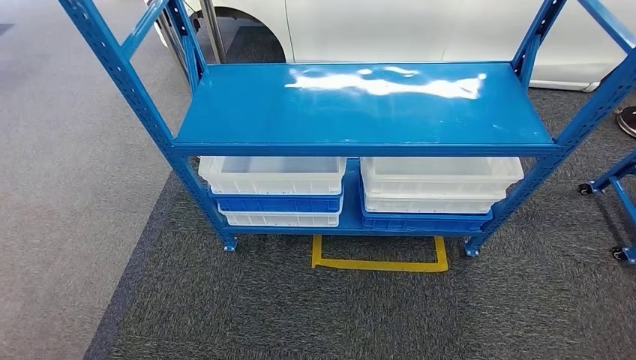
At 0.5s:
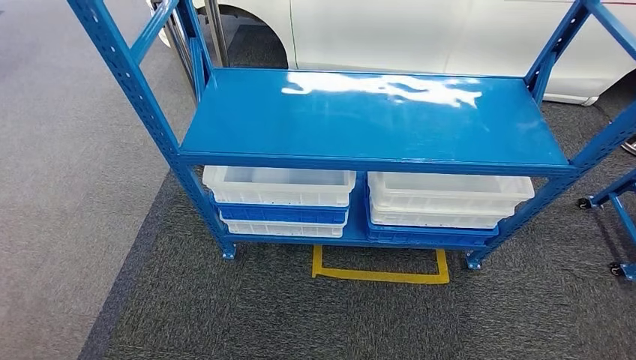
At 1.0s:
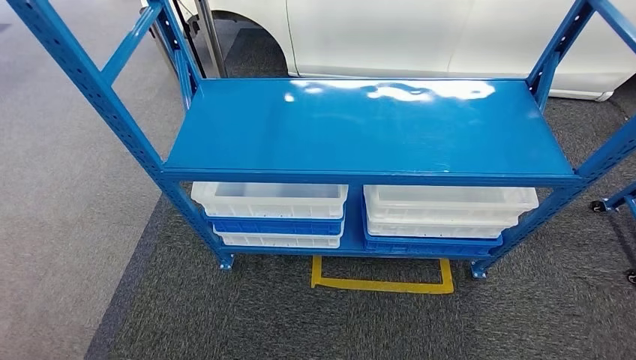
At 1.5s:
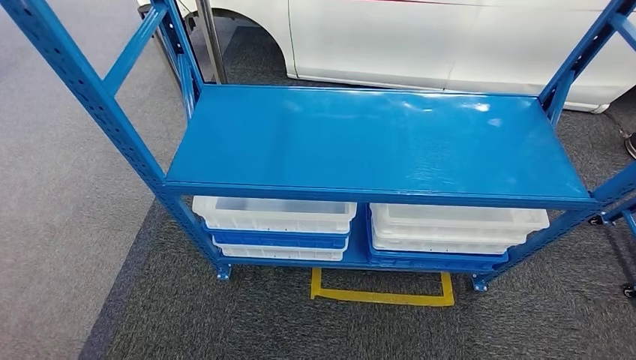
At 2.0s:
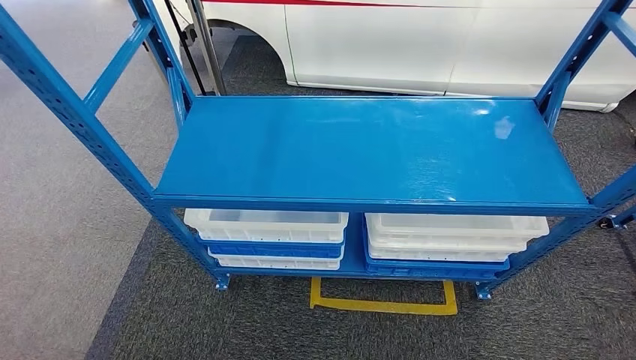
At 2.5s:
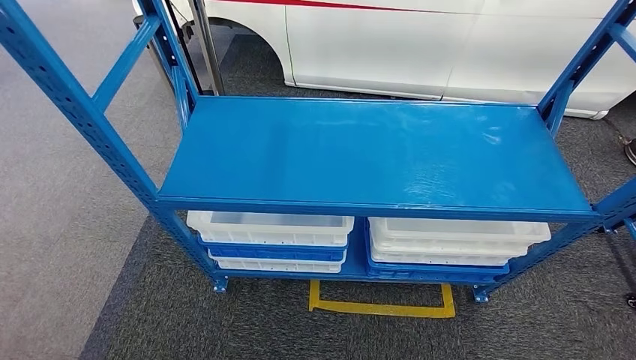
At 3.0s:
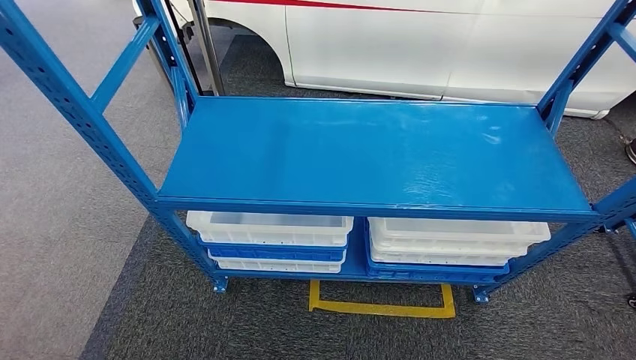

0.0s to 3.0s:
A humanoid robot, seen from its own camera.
Step, 0.0s to 3.0s: Move to the initial position of the shelf.

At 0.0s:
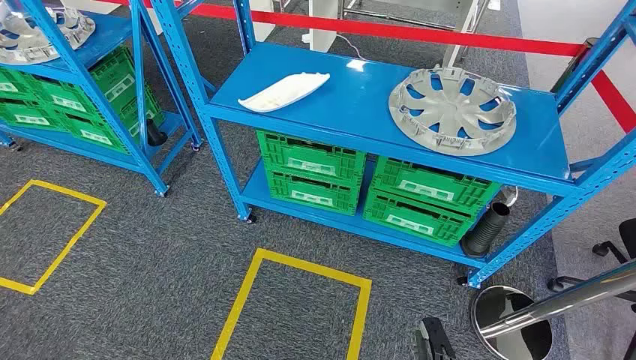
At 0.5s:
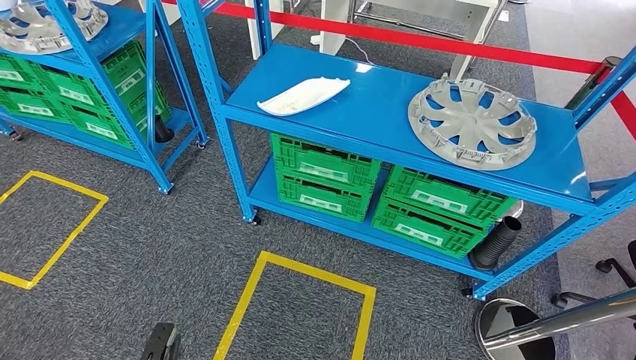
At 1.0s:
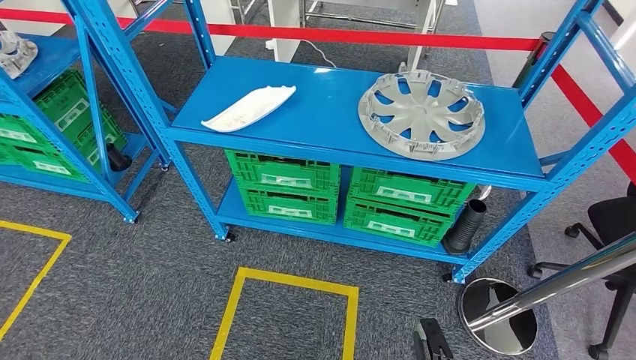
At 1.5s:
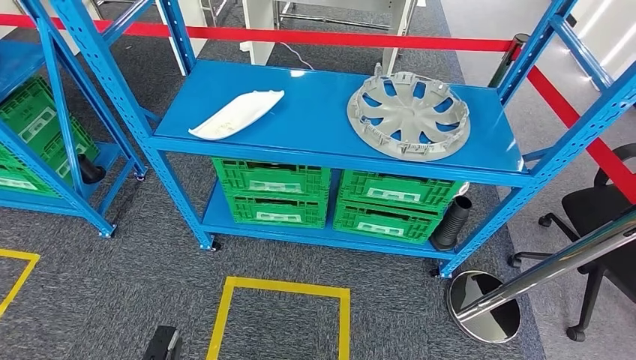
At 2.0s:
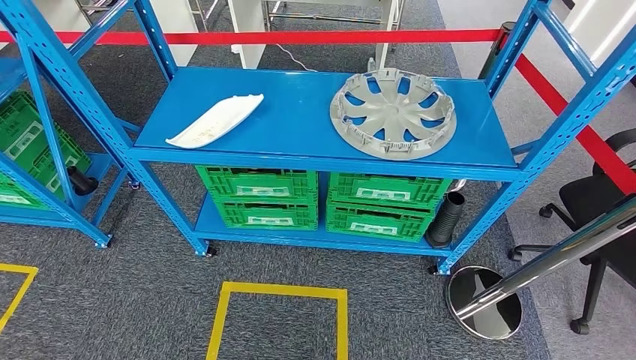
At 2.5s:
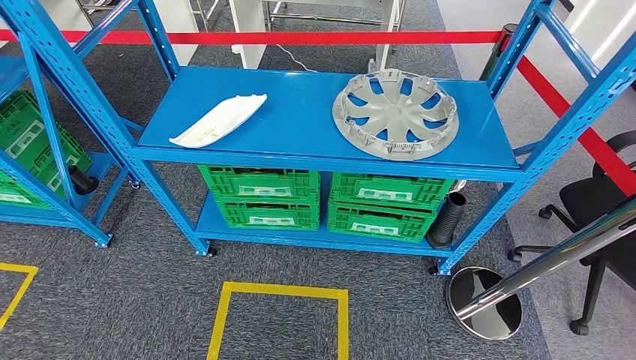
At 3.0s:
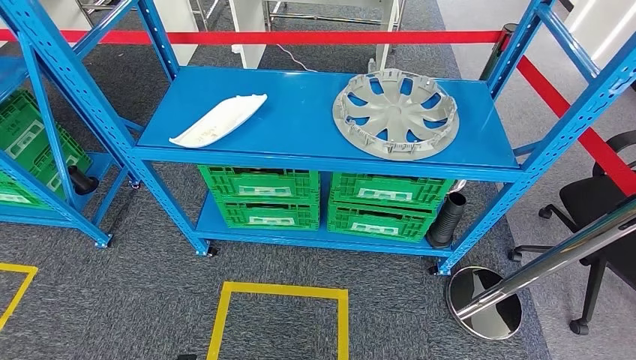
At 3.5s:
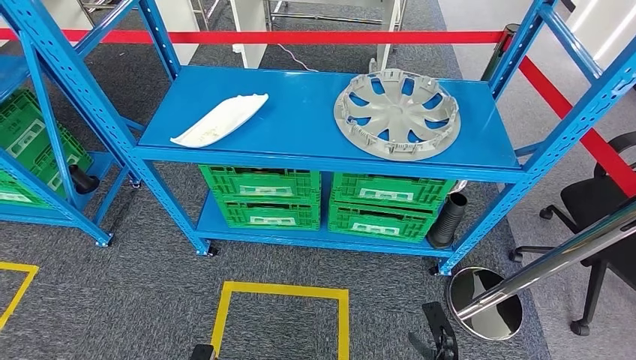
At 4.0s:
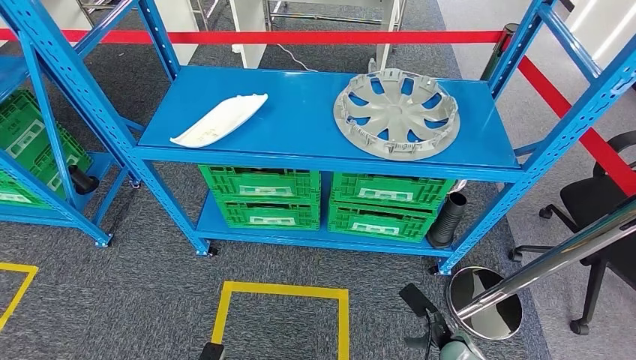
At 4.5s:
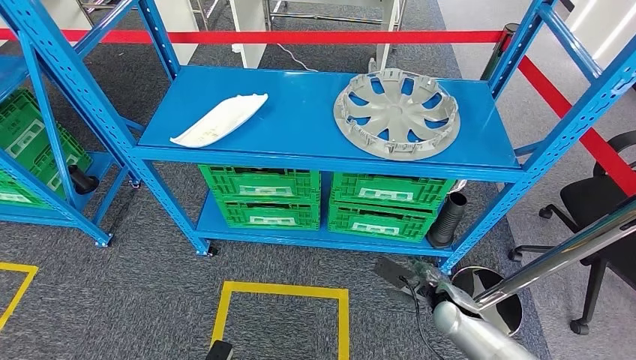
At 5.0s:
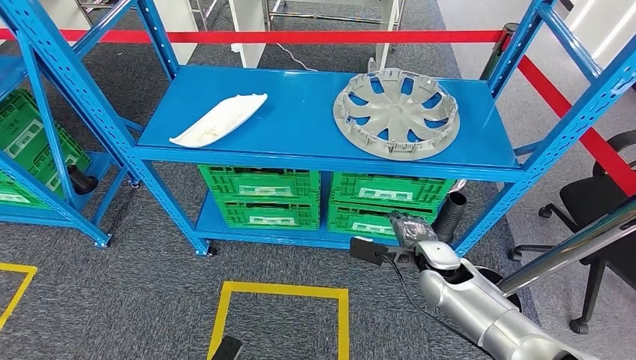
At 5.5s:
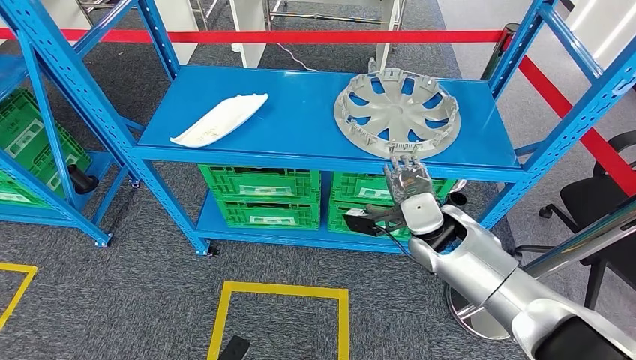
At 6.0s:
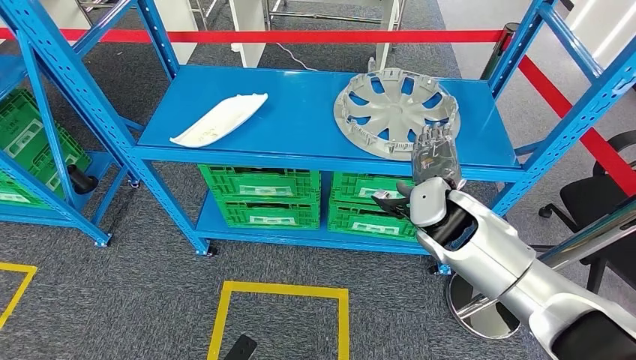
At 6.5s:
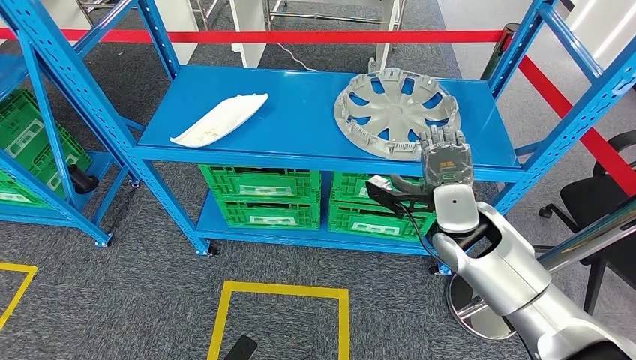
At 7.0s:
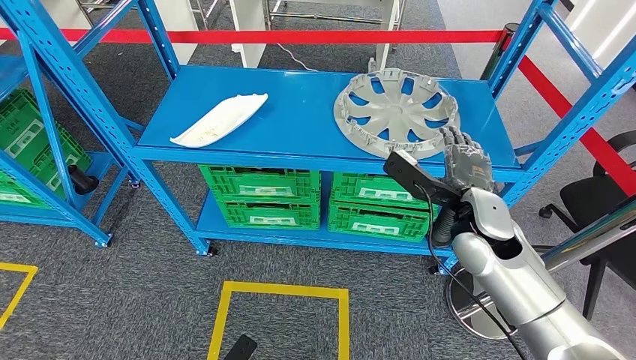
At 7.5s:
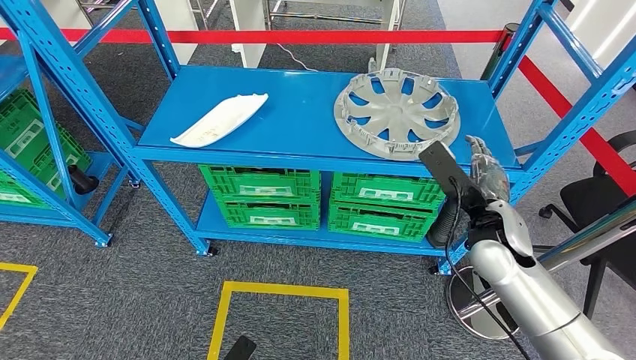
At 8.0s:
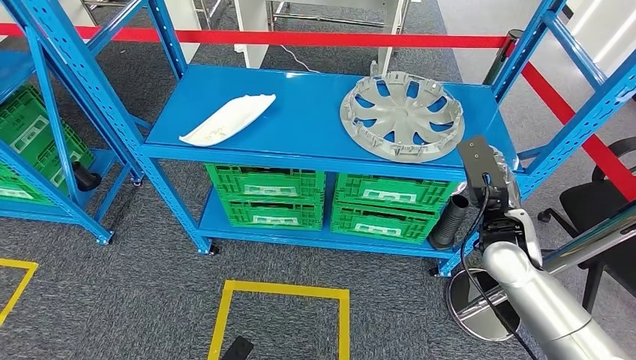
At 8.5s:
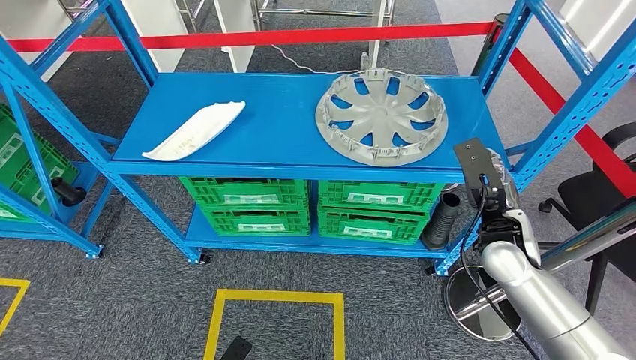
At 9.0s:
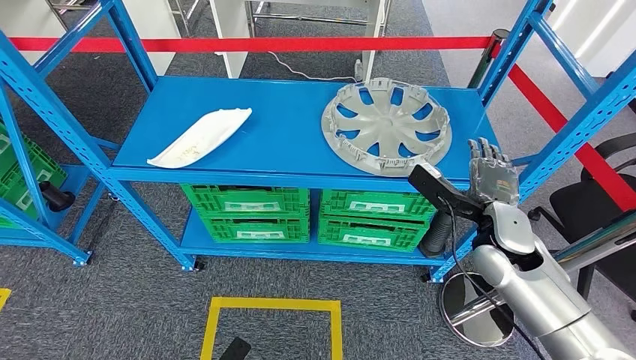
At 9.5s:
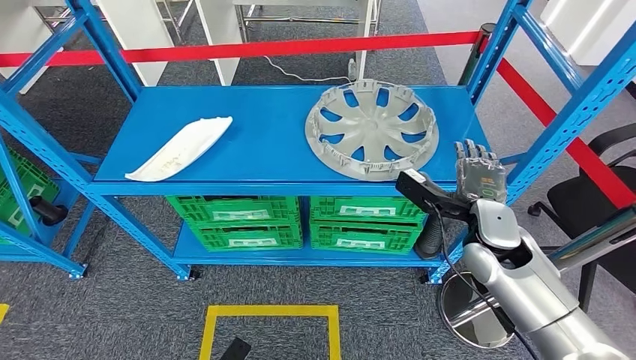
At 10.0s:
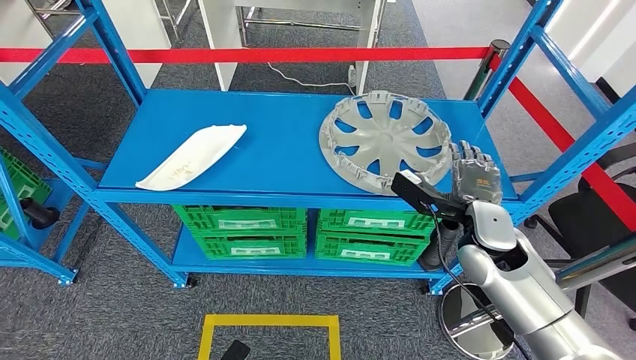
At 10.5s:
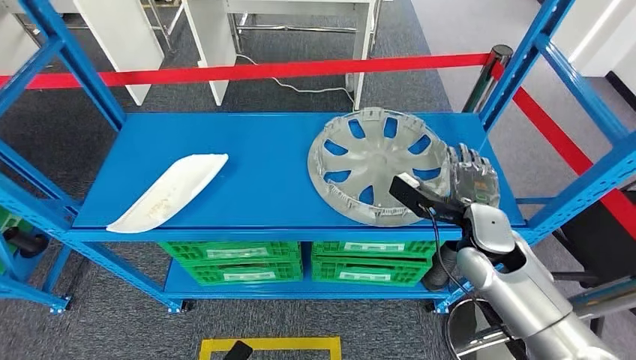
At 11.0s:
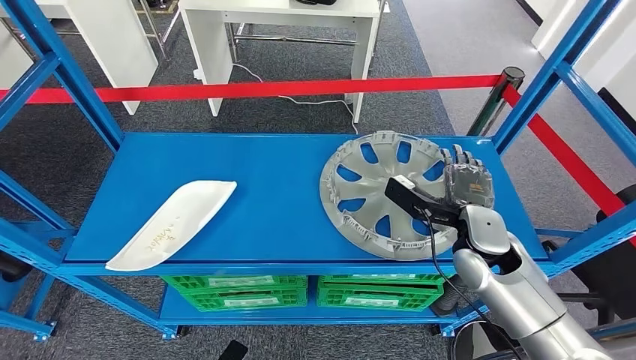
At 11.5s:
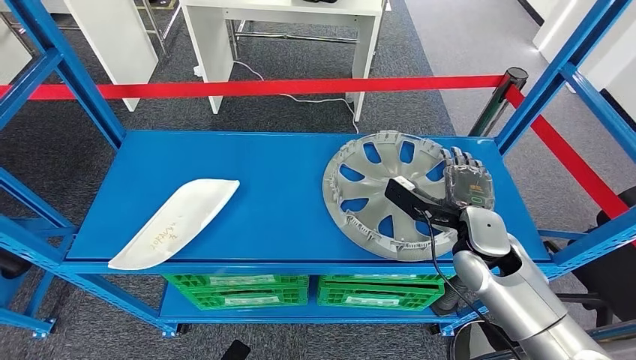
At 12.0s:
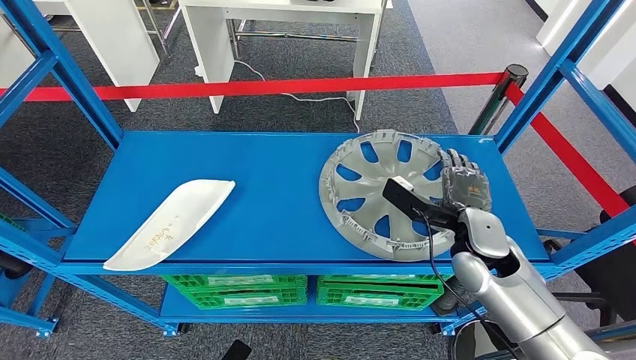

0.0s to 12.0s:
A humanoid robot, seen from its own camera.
2.0s to 4.0s: The left hand heads to the right and forward, covering about 10 cm. The right hand moves forward, roughly 20 cm.
4.0s to 6.0s: The right hand goes about 35 cm upward and forward.

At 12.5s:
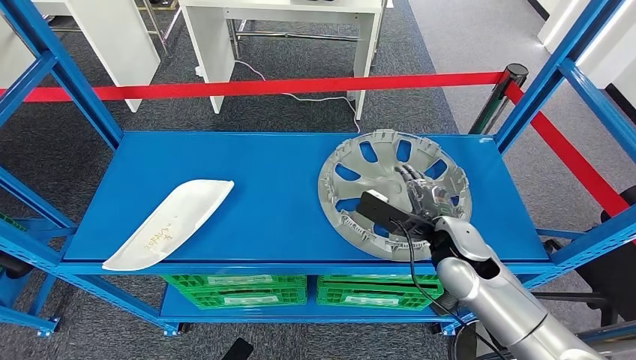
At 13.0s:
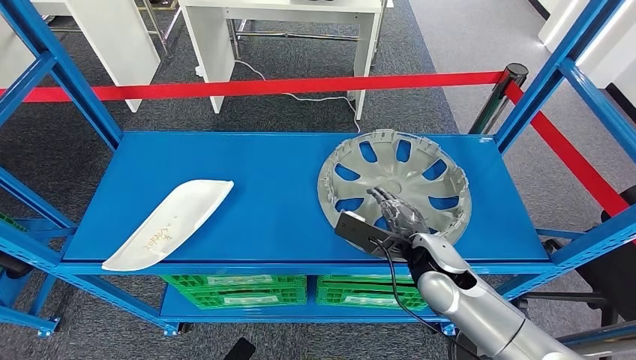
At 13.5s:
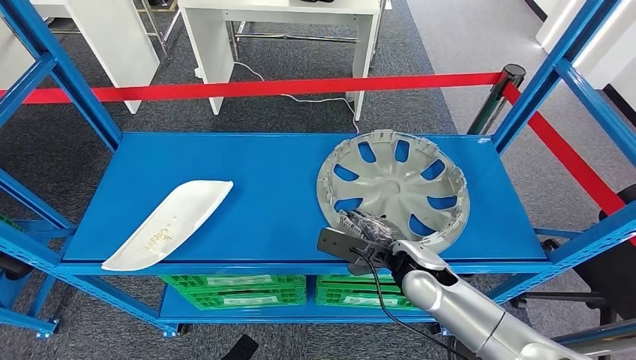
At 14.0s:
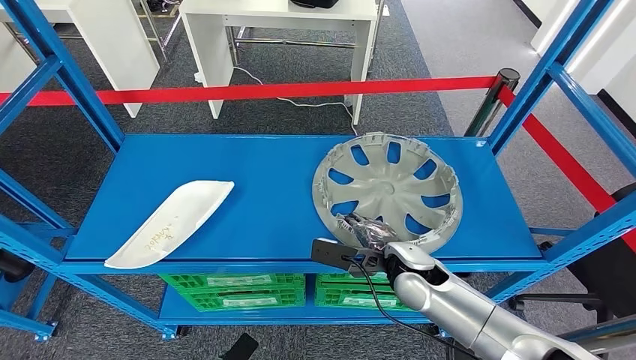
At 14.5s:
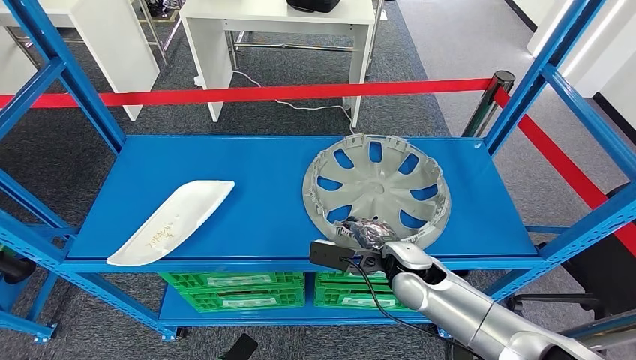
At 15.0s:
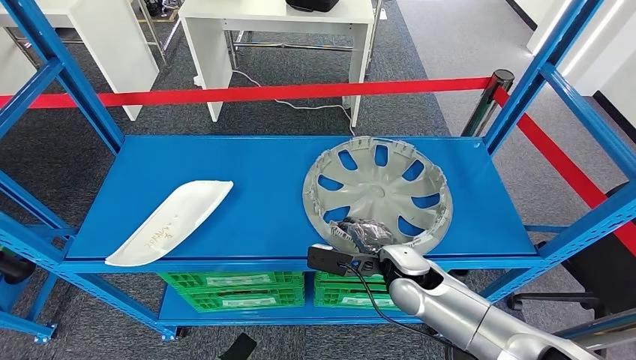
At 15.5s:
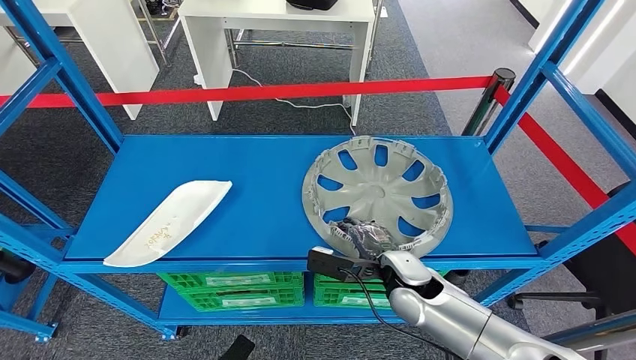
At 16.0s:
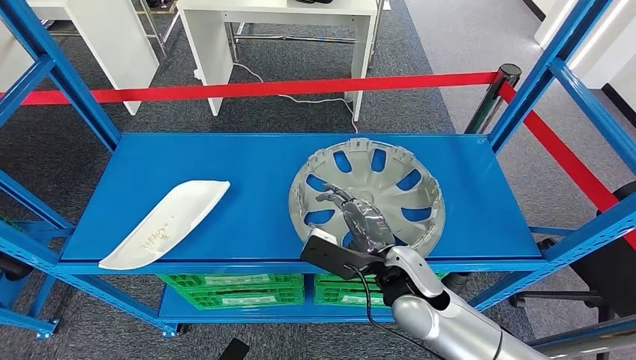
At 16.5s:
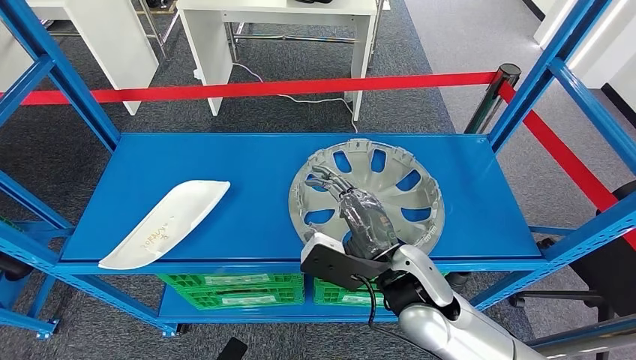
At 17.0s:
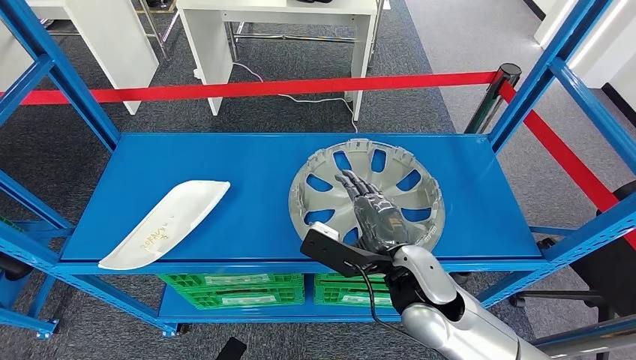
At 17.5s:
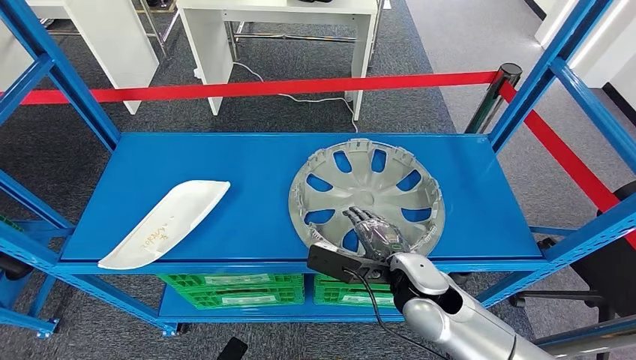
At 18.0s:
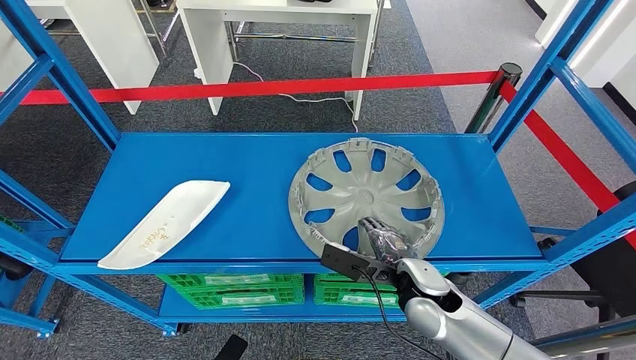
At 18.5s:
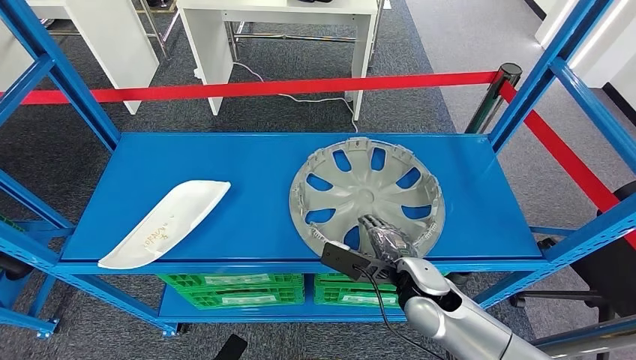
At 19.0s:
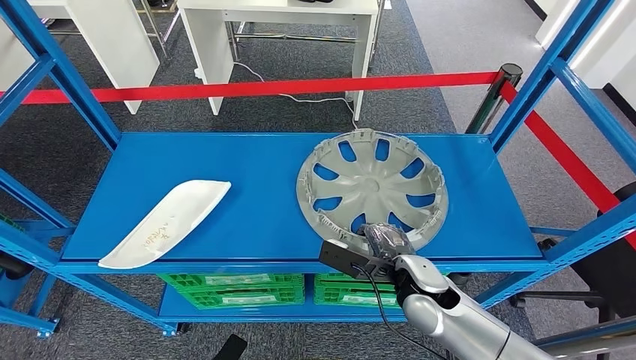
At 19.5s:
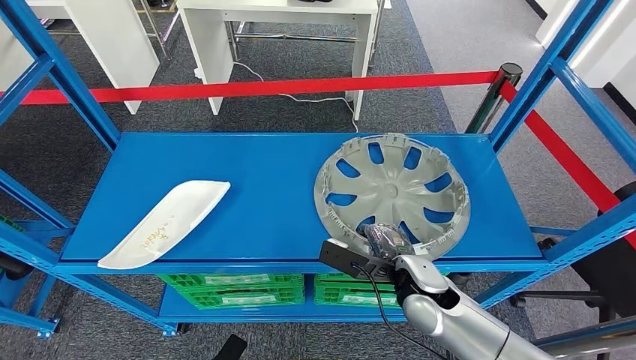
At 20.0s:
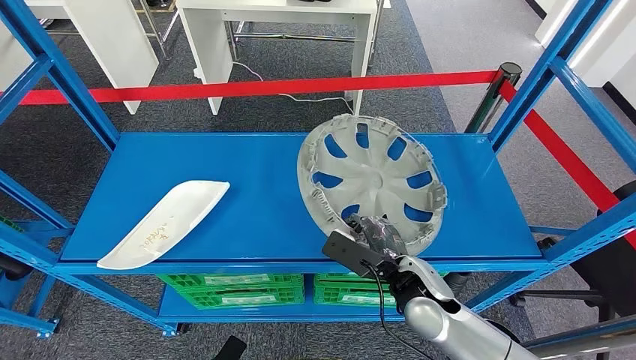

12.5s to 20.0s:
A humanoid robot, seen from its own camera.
16.5s to 18.0s: The right hand travels downward by some 10 cm.
